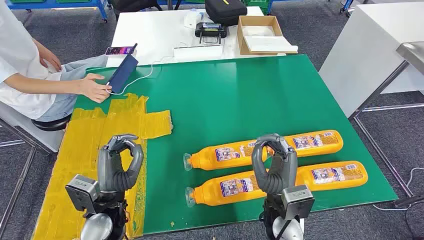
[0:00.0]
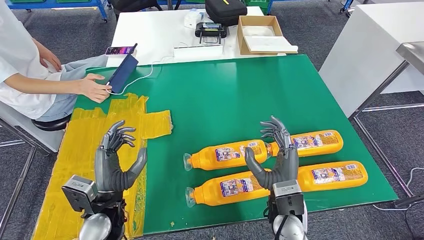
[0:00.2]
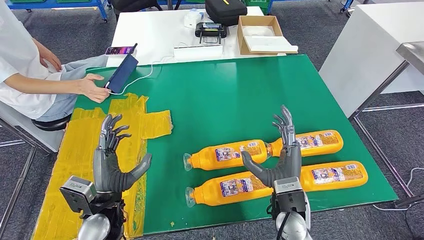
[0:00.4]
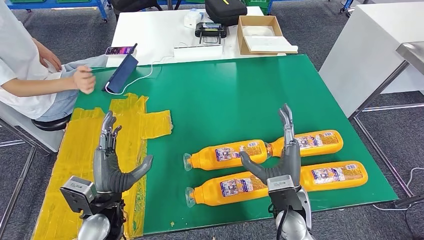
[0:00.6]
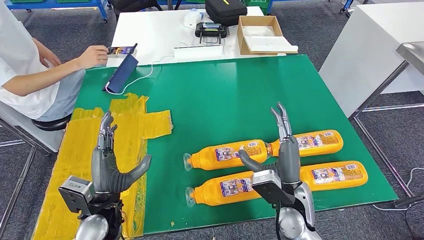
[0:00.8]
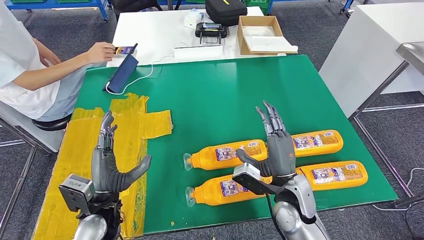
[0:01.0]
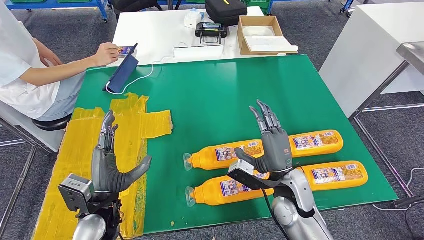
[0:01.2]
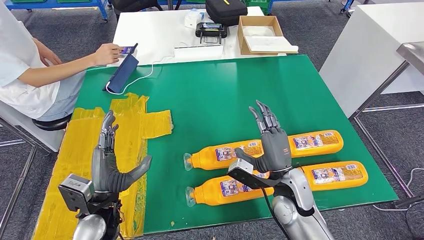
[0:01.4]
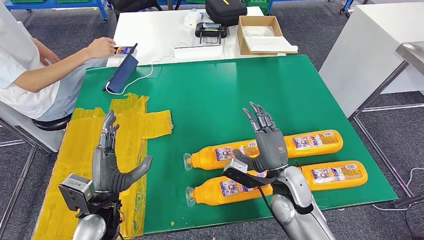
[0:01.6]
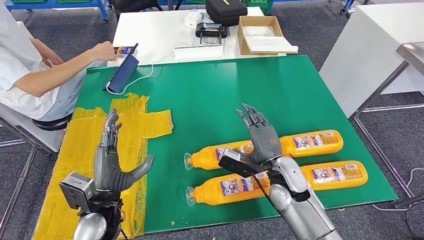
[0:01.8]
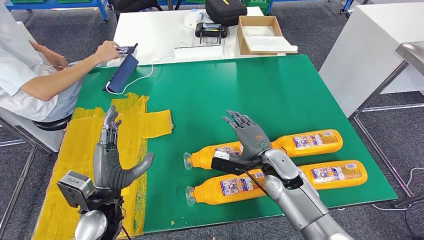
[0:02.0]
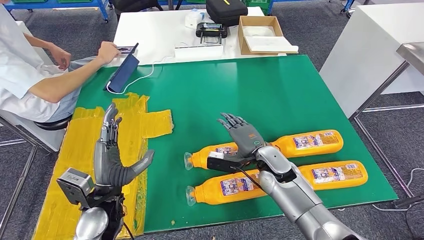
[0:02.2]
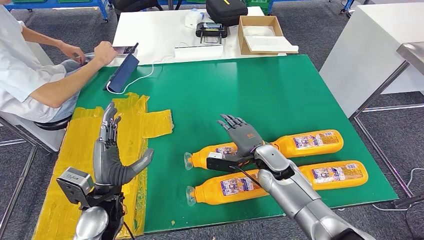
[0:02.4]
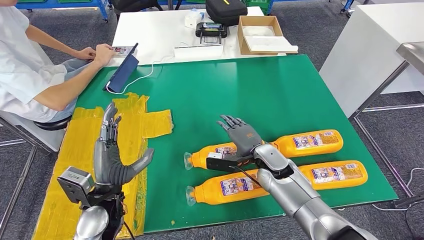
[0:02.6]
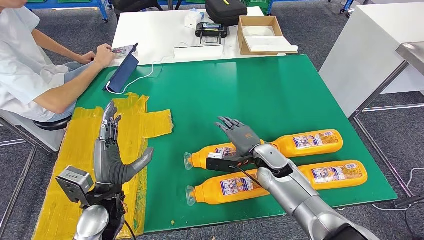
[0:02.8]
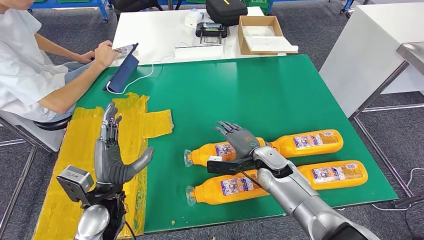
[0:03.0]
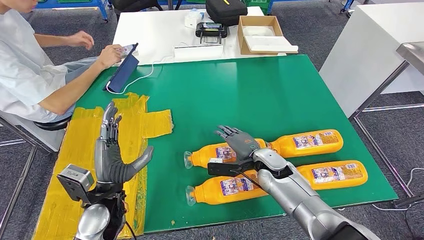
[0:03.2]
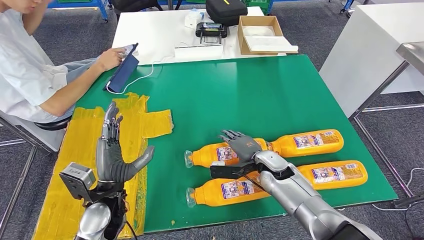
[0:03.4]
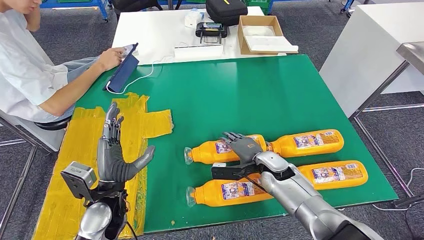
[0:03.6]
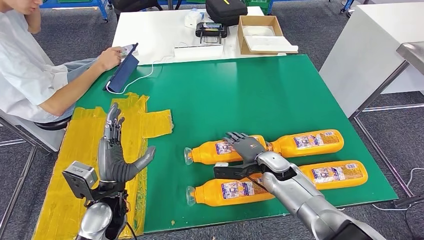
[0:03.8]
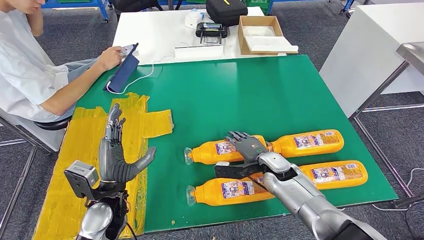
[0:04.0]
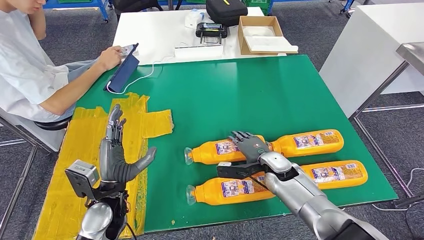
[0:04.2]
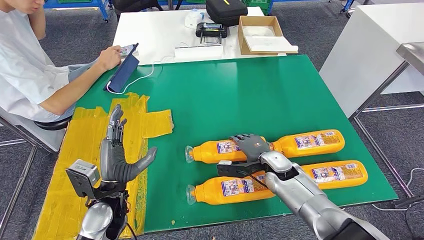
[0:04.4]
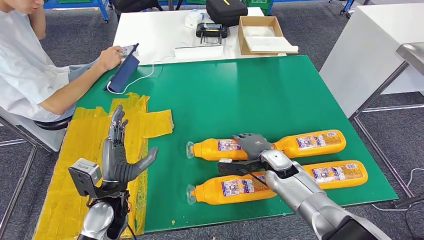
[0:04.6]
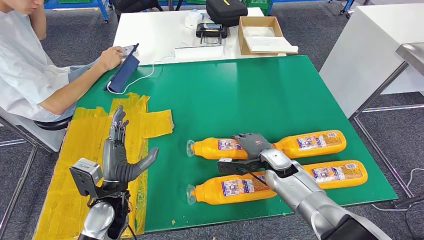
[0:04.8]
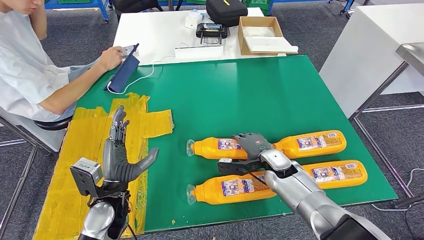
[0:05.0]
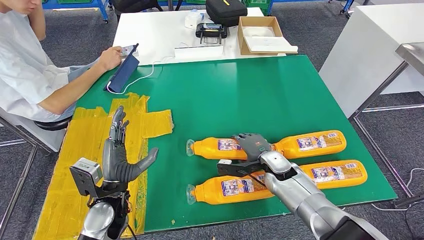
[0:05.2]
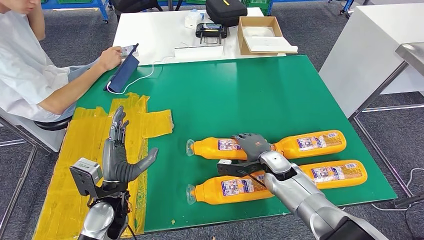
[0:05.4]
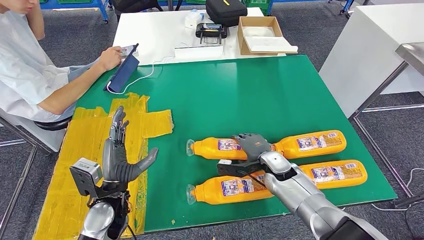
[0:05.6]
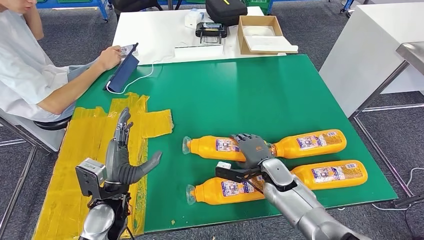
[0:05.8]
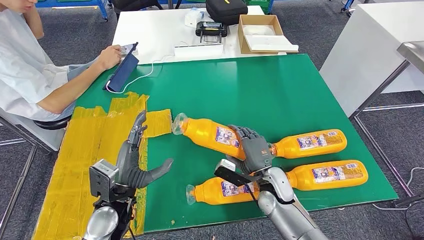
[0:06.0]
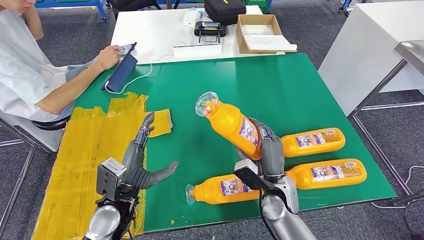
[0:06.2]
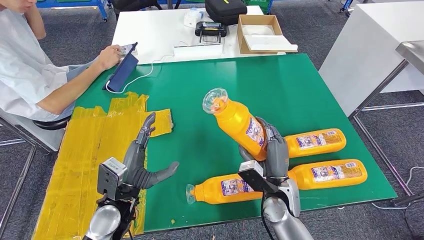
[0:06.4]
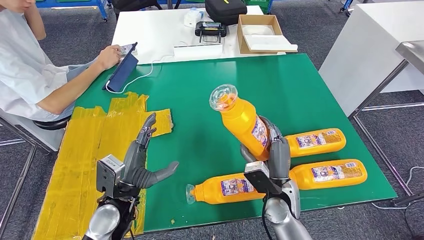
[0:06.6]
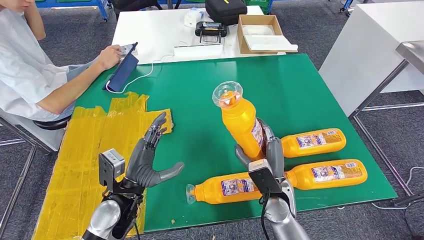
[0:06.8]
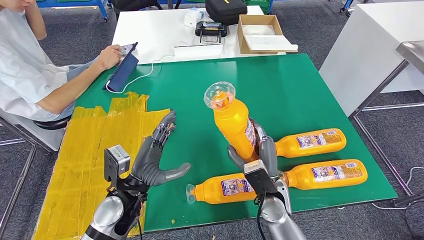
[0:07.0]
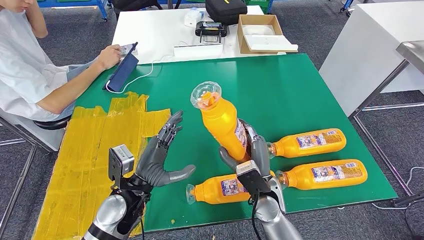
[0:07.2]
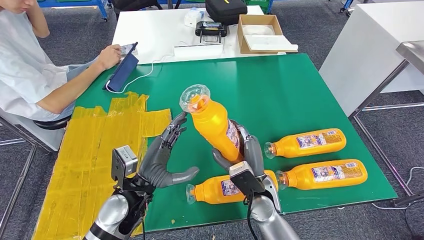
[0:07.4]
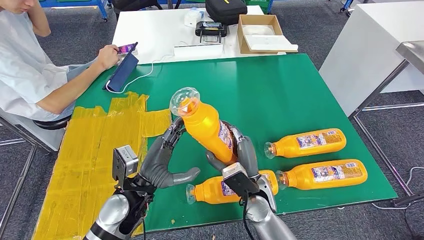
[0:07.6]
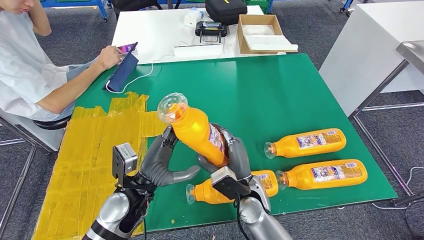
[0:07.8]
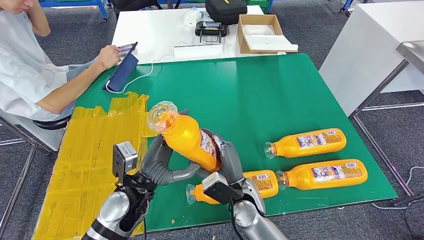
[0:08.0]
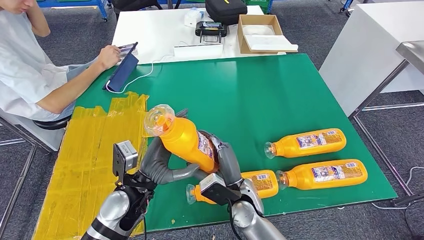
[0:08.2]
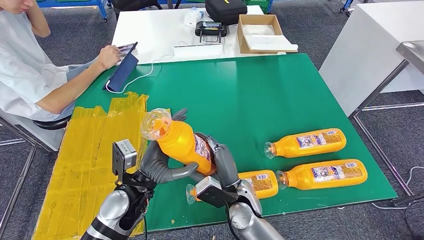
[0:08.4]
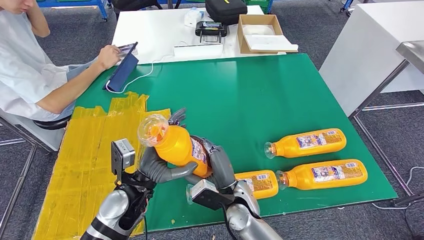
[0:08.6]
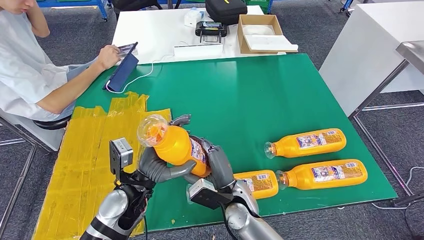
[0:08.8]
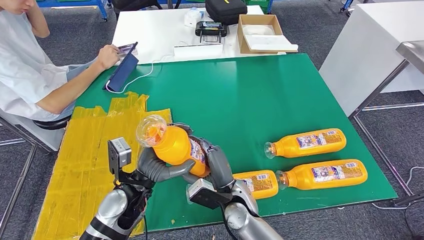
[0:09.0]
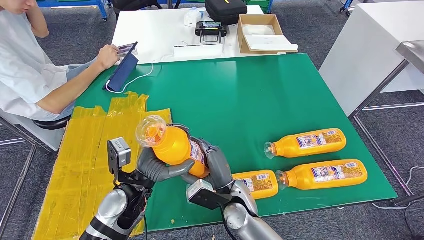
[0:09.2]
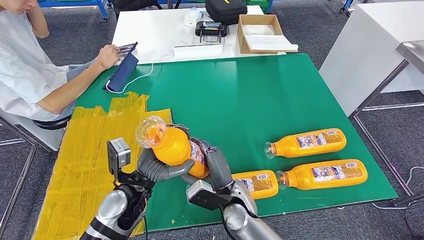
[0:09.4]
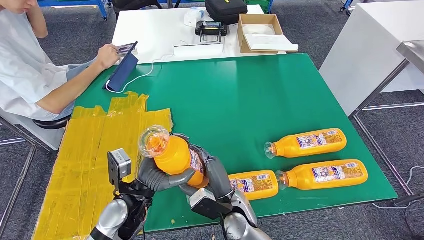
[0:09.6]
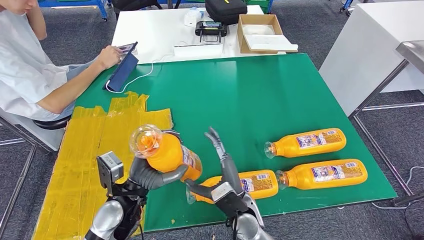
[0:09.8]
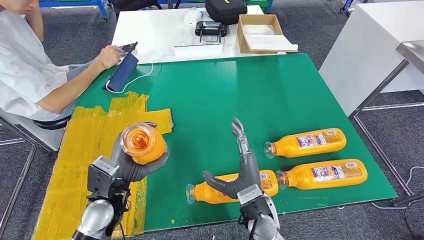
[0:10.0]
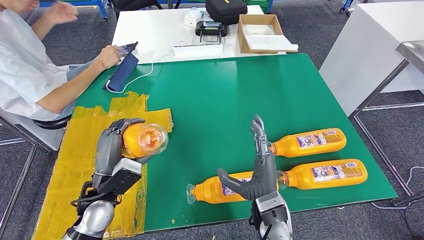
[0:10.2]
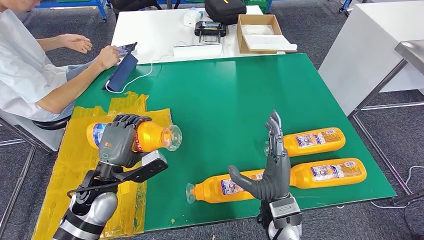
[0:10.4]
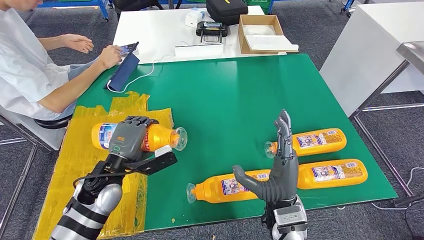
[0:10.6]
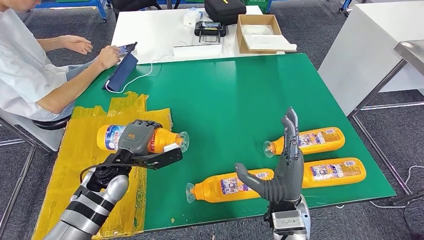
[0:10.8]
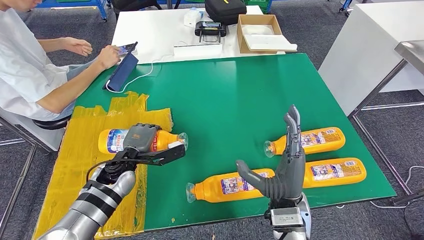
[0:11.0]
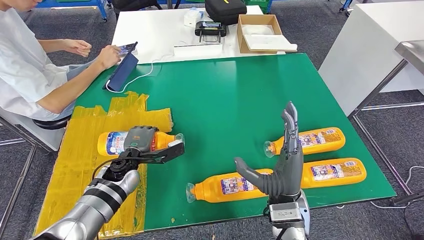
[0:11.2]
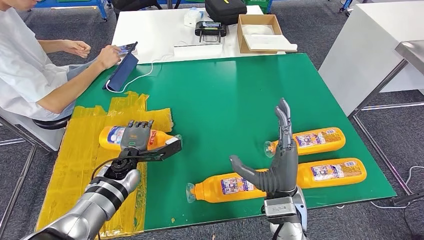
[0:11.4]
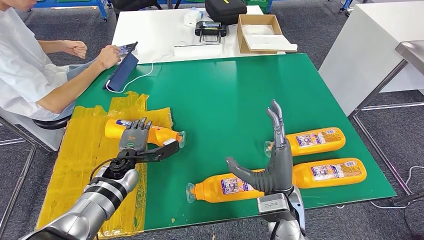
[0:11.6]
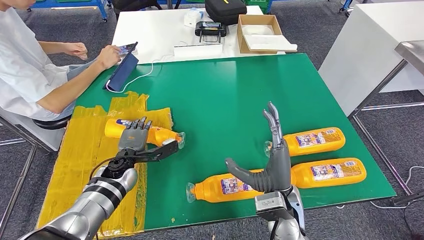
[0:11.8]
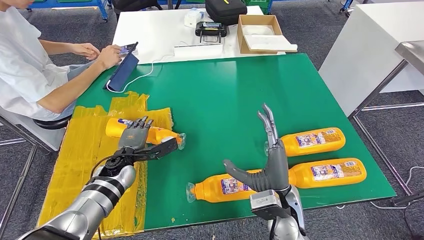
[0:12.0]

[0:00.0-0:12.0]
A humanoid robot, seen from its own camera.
Step, 0:00.0 to 0:08.4: Take the fast-moving consumer goods bottle from the table.
0:01.6 to 0:03.0: The right hand is displaced forward by approximately 10 cm.
0:03.0 to 0:04.4: There are only small adjustments of the hands.
0:04.4 to 0:06.0: The right hand heads backward, covering roughly 5 cm.
0:06.0 to 0:07.6: The right hand is displaced to the left by about 5 cm.
0:07.6 to 0:09.0: The right hand shifts roughly 5 cm to the left.
0:09.0 to 0:10.4: The right hand heads to the right and upward, covering some 10 cm. Meanwhile the left hand heads to the left, covering approximately 5 cm.
0:10.4 to 0:12.0: The left hand is displaced forward and downward by about 10 cm.

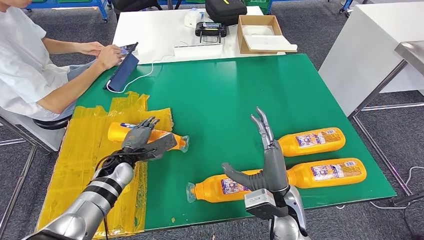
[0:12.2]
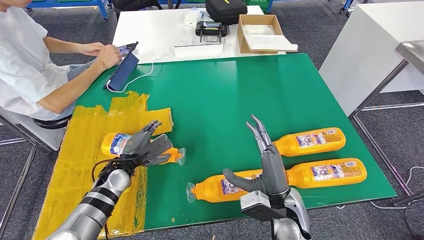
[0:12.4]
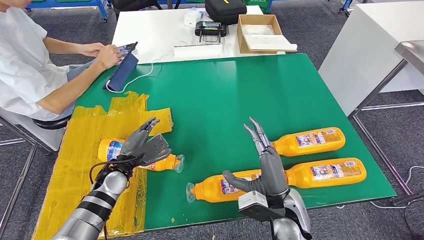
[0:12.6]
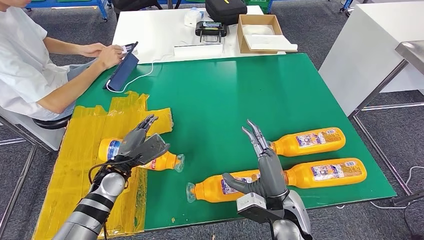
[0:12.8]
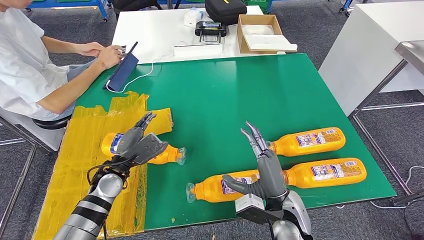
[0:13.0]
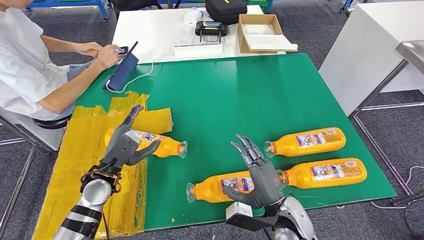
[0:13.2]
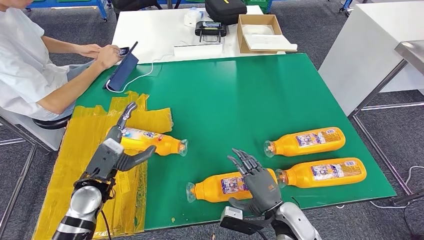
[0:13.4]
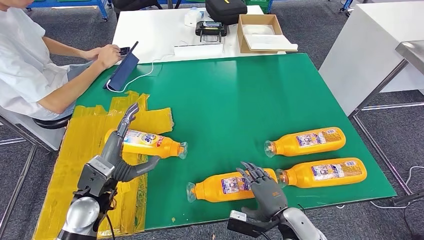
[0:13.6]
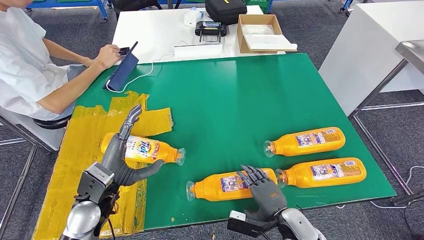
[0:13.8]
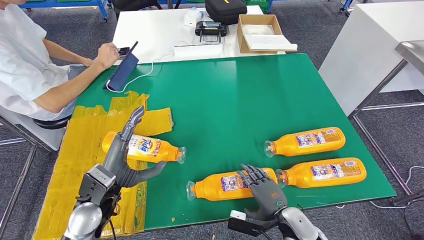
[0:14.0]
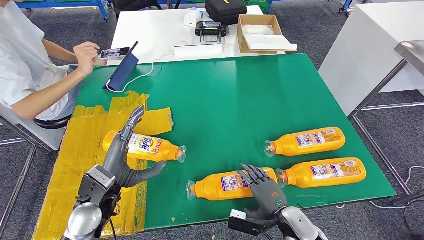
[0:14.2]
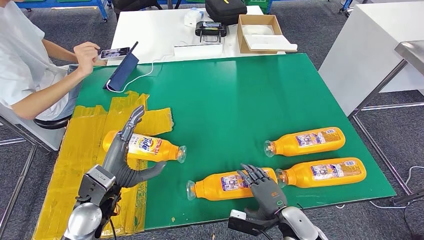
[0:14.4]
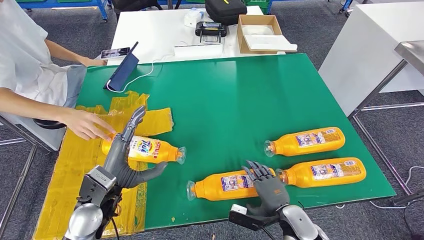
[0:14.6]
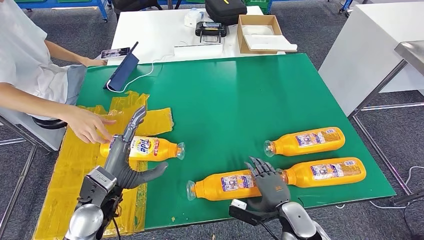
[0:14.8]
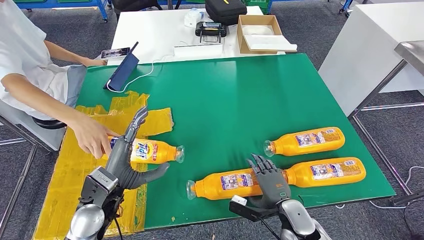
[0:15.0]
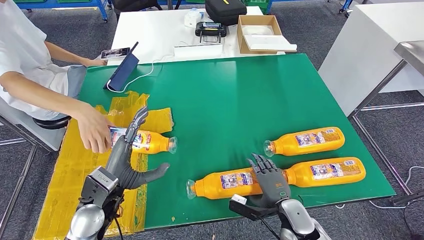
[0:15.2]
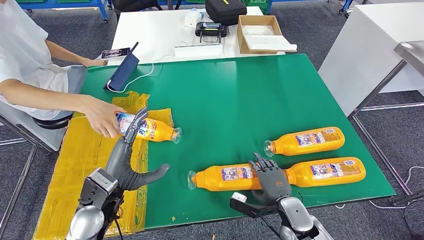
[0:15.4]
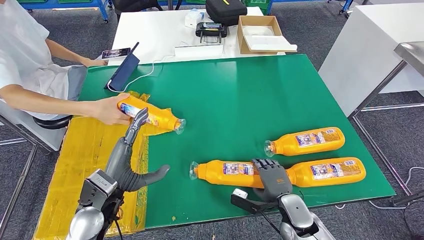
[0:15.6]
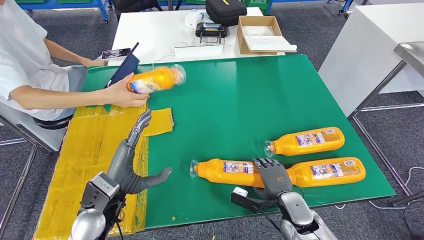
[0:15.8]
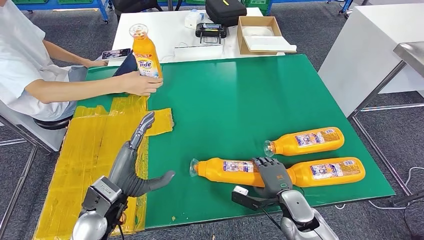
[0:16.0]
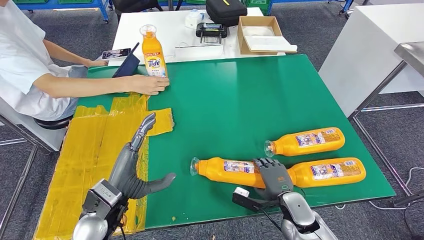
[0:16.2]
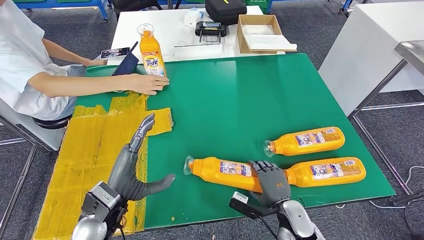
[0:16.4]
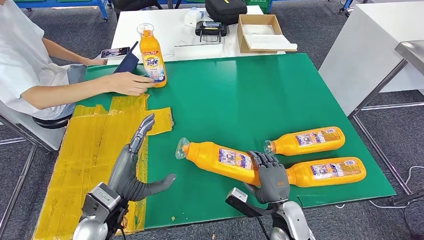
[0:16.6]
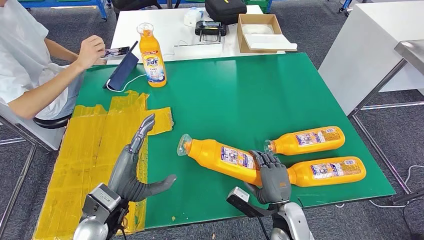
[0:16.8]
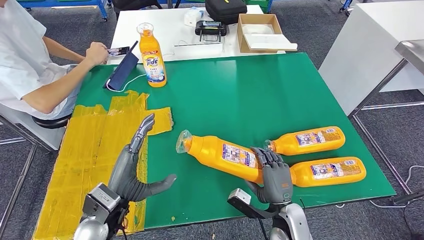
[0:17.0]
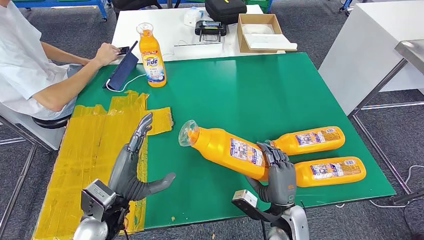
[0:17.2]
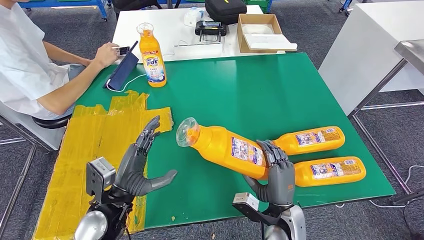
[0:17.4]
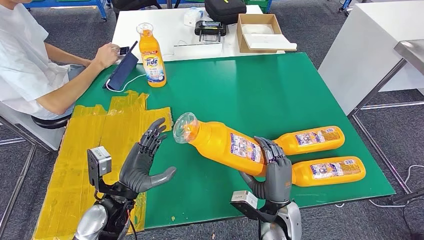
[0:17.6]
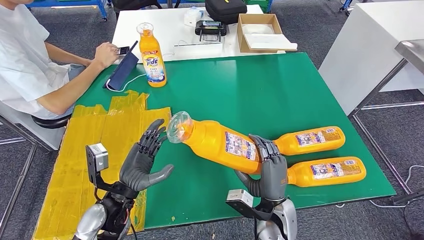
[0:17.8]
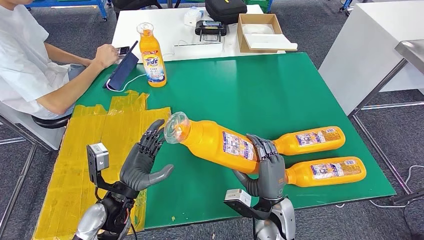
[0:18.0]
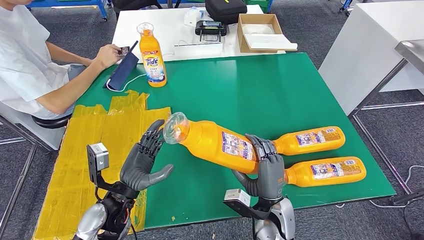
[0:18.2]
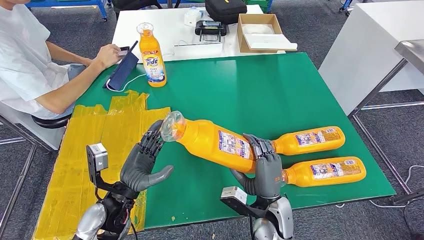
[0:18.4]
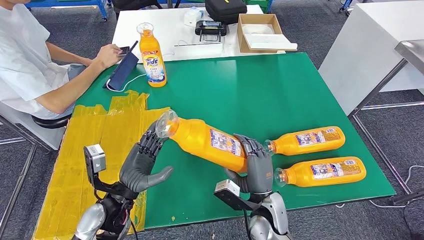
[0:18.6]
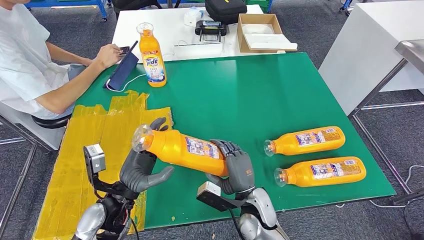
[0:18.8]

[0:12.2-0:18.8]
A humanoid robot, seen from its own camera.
Step, 0:13.6 to 0:17.2: Pick up the fast-moving consumer goods bottle from the table.
0:12.2 to 0:13.8: The right hand moves downward and to the right, roughly 10 cm. The left hand goes about 15 cm backward and upward.
0:13.8 to 0:15.4: The hands move only a little.
0:17.2 to 0:18.8: The right hand travels to the left by roughly 10 cm.
